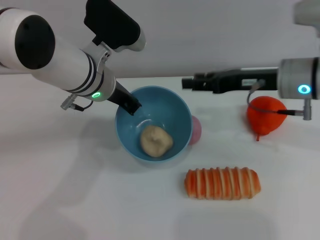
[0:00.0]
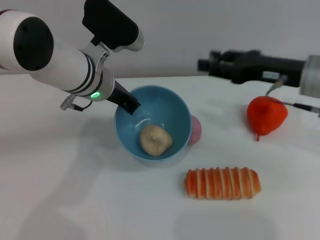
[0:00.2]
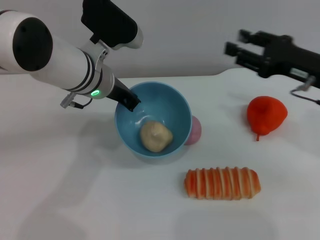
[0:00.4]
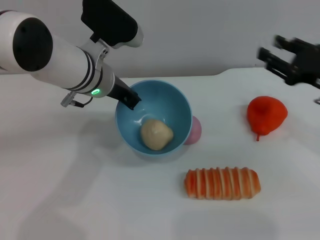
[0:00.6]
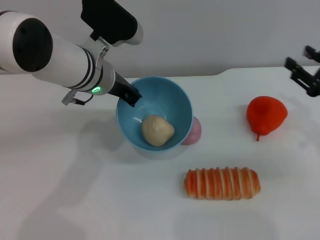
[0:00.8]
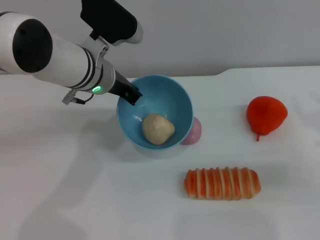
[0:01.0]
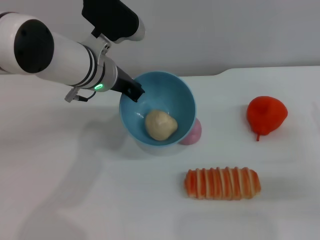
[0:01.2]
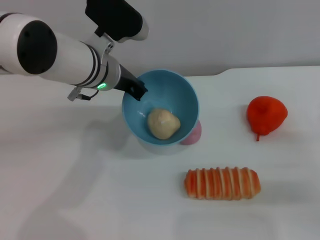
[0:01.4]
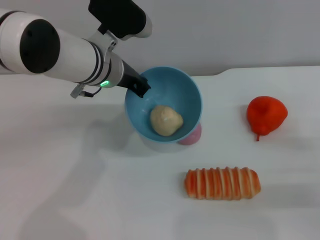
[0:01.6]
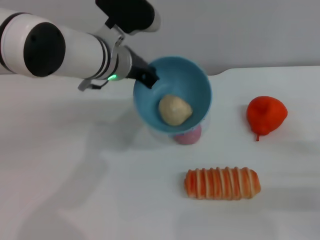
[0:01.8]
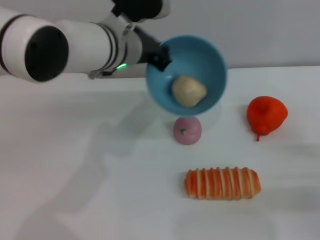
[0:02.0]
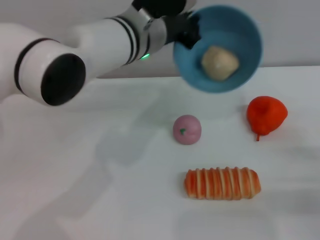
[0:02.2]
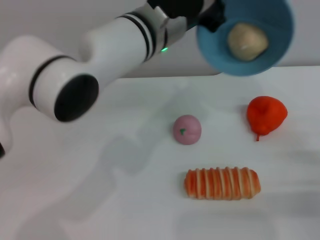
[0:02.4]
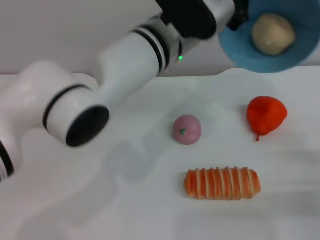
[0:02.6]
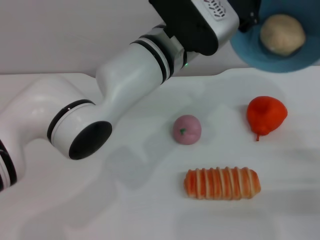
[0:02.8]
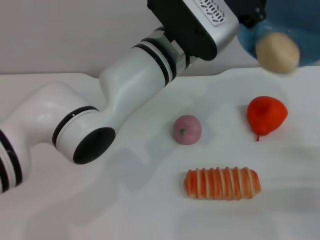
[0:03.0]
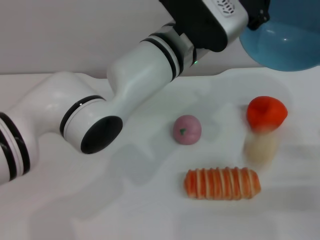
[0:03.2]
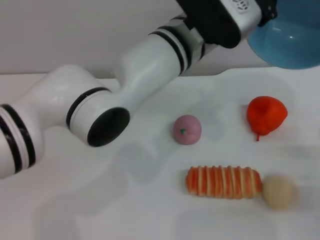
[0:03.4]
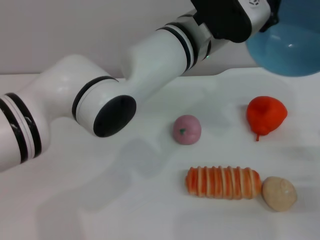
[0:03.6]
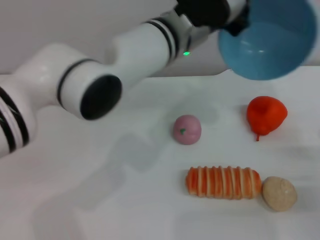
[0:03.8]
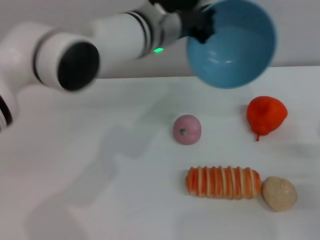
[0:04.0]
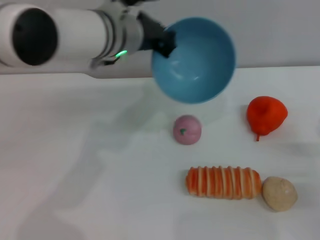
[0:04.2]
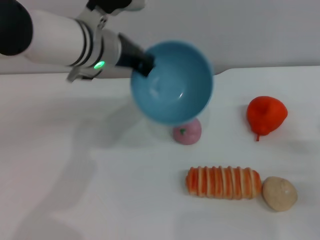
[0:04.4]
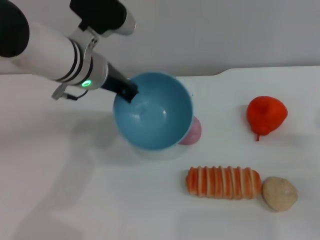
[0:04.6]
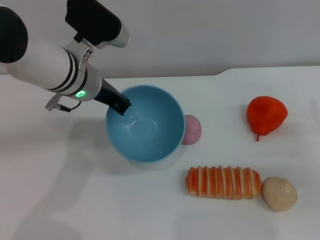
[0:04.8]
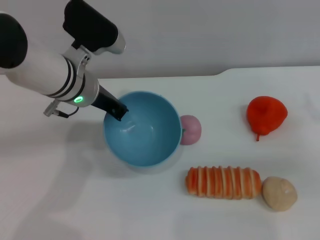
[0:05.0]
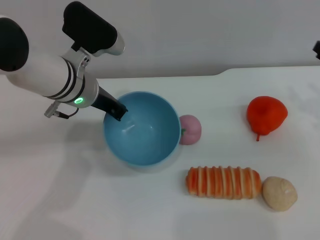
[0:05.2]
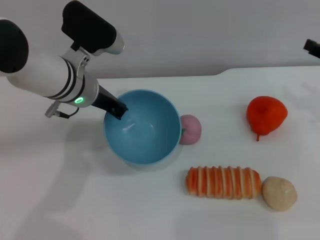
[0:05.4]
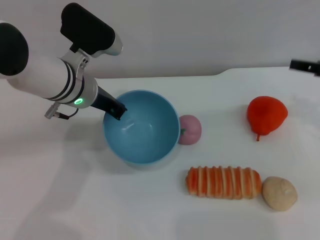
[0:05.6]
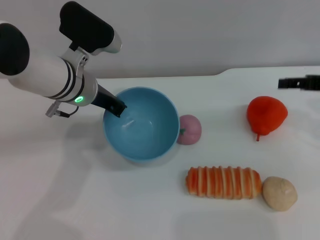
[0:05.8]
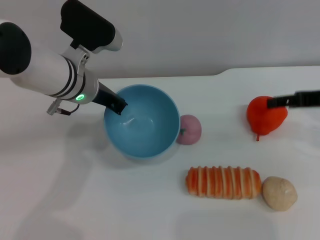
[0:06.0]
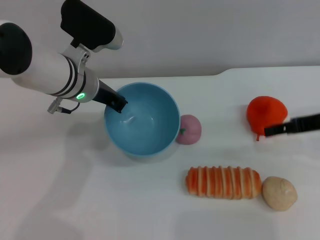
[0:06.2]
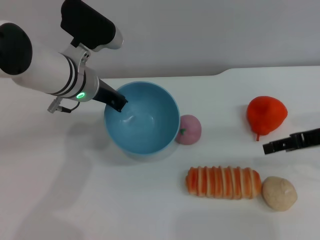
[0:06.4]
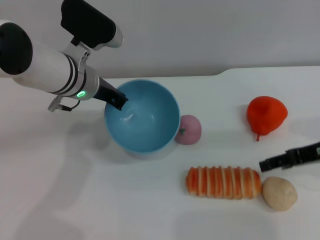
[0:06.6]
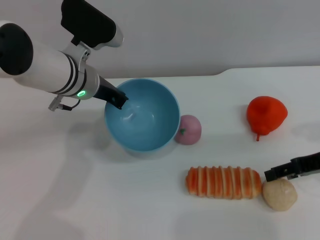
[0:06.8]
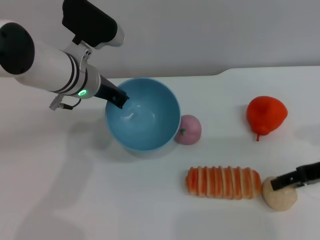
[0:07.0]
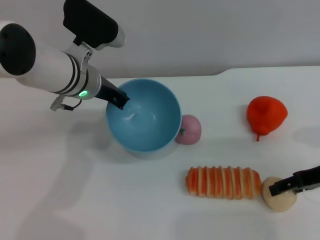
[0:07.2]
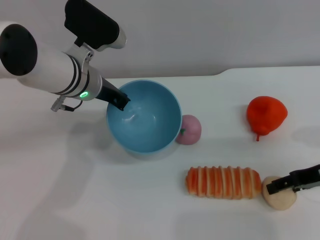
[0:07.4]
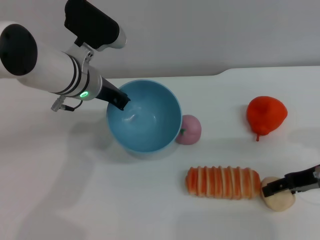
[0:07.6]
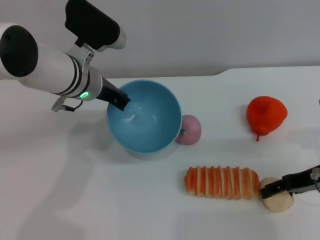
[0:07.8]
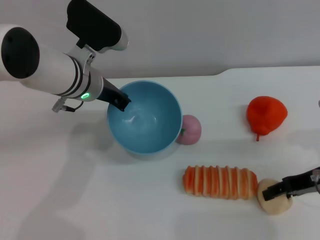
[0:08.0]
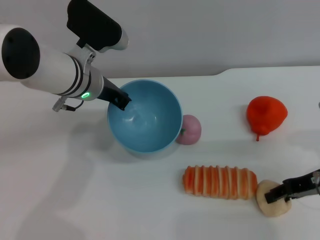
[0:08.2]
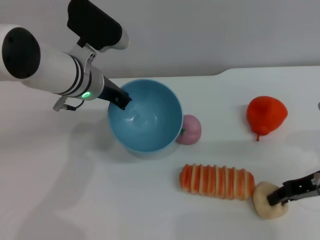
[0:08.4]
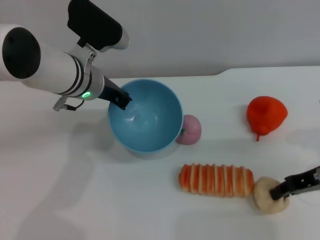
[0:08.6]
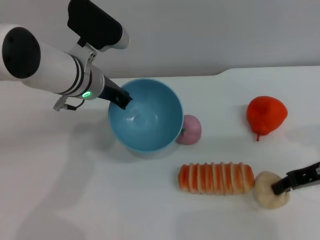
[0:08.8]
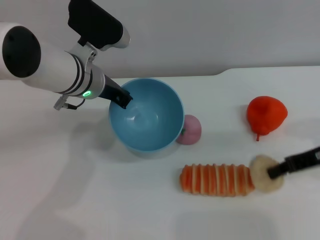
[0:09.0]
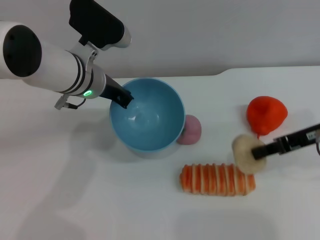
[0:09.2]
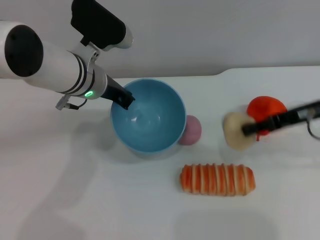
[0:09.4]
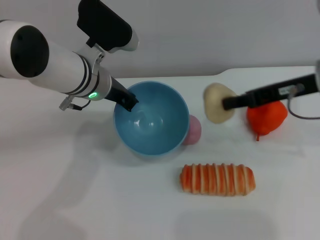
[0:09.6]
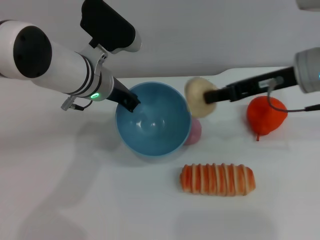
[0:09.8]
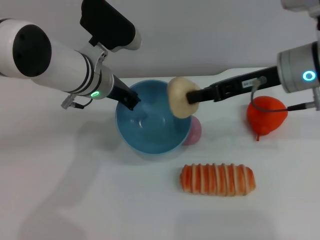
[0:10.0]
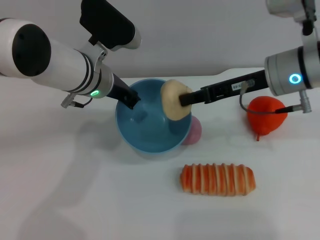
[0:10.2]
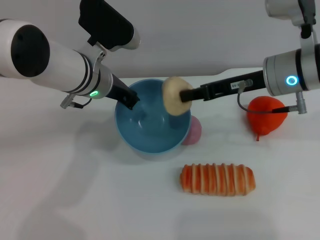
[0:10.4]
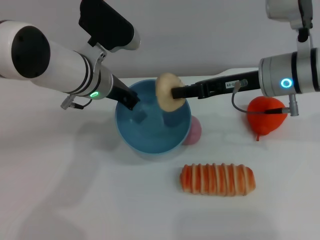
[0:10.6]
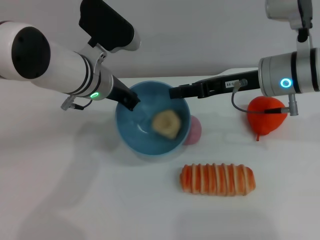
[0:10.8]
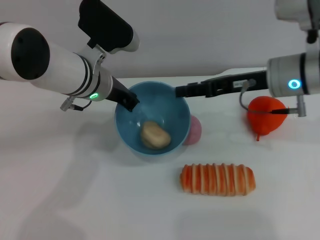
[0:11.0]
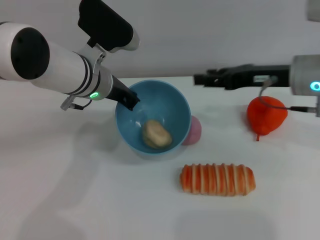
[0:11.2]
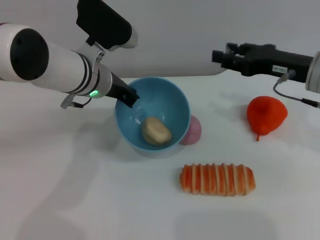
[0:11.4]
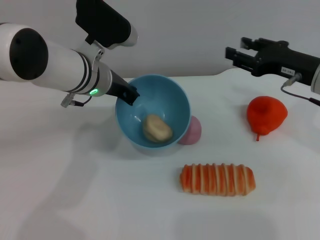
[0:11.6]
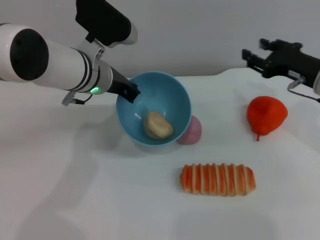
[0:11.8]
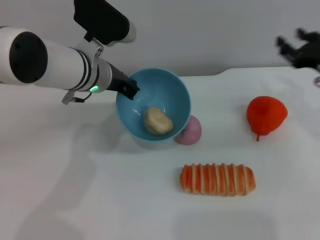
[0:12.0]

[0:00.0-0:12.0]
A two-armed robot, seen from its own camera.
Task of the whole recording: put the egg yolk pastry into the blue bowl and pour it out repeatedly.
Step, 0:00.2 to 0:04.0: Pour the egg yolk pastry out of bowl.
Step, 0:04.2 to 0:09.0: Pick up the egg yolk pastry with the right gripper.
Step, 0:09.2 to 0:11.6: Place the egg yolk pastry into the bowl.
0:00.0 to 0:01.6: The right gripper is displaced to the right, backward and downward by some 25 cm.
0:01.6 to 0:03.0: The left gripper shifts about 10 cm to the right.
0:03.0 to 0:04.4: The left gripper moves to the left, about 10 cm.
0:04.4 to 0:06.0: The right gripper heads upward and forward, covering approximately 15 cm; the left gripper shifts by some 5 cm.
0:06.0 to 0:07.6: The right gripper goes approximately 10 cm downward.
0:07.6 to 0:09.0: The right gripper closes its fingers.
0:09.0 to 0:10.4: The right gripper travels to the left and forward by roughly 10 cm.
0:10.4 to 0:12.0: The right gripper heads to the right and downward, covering approximately 15 cm, and opens its fingers.

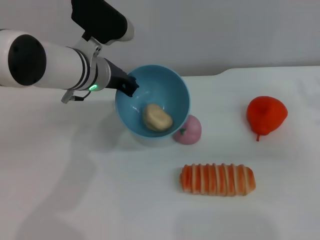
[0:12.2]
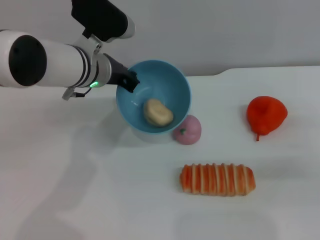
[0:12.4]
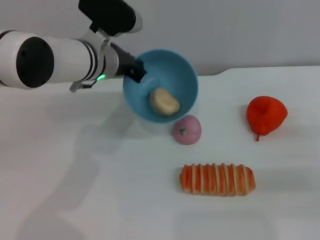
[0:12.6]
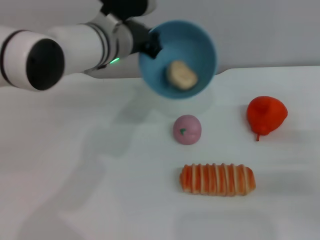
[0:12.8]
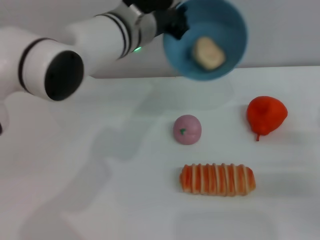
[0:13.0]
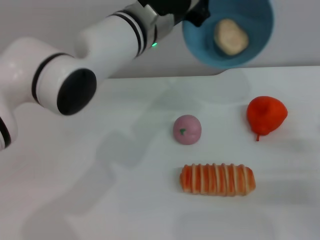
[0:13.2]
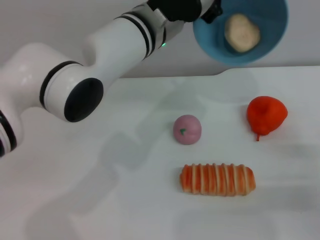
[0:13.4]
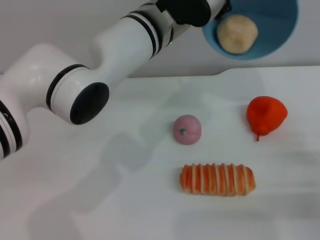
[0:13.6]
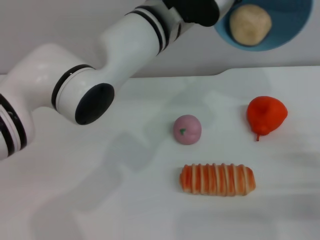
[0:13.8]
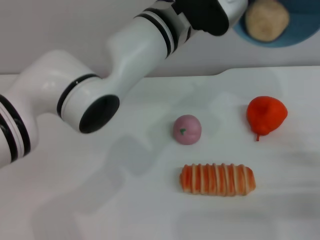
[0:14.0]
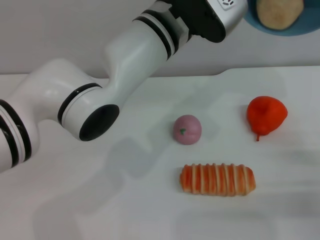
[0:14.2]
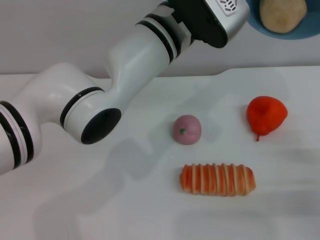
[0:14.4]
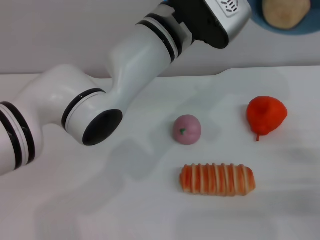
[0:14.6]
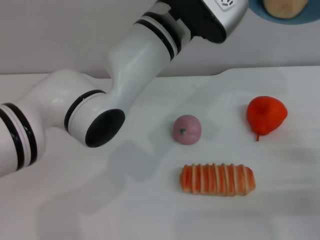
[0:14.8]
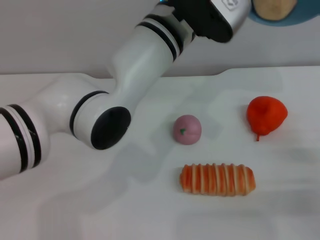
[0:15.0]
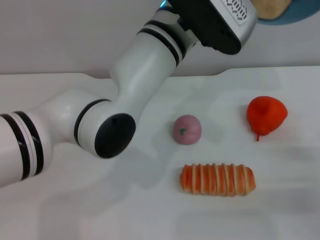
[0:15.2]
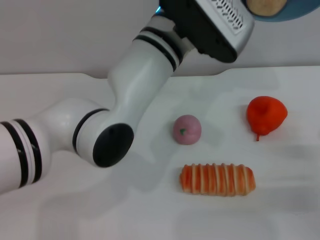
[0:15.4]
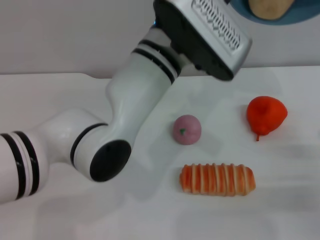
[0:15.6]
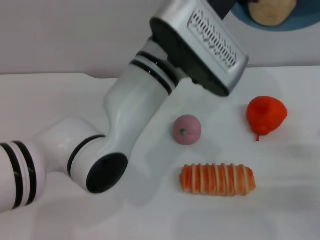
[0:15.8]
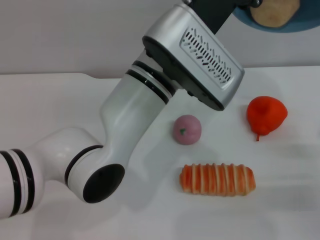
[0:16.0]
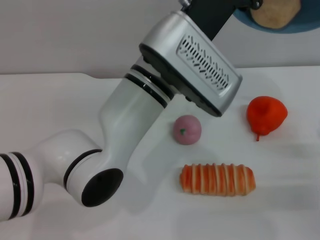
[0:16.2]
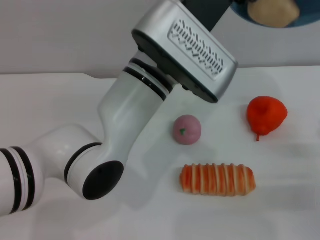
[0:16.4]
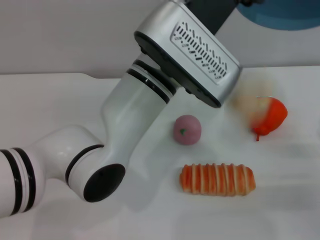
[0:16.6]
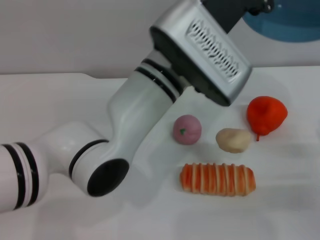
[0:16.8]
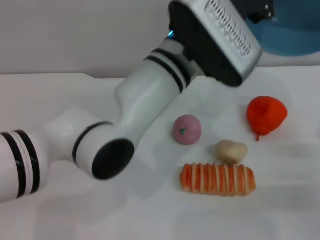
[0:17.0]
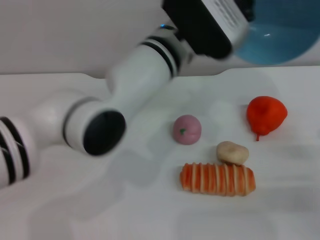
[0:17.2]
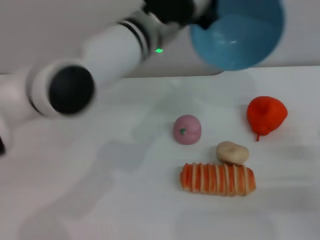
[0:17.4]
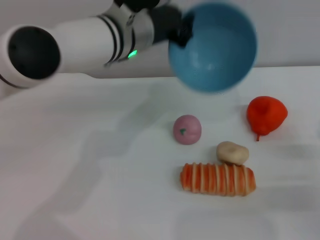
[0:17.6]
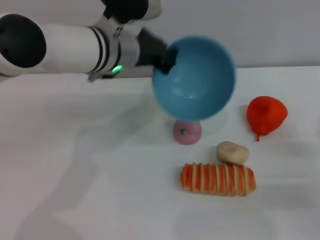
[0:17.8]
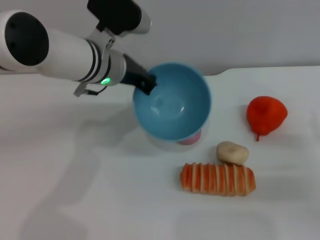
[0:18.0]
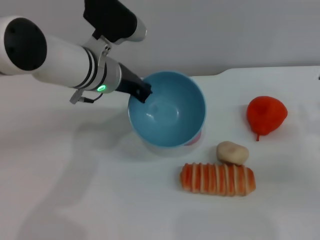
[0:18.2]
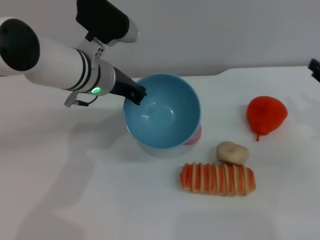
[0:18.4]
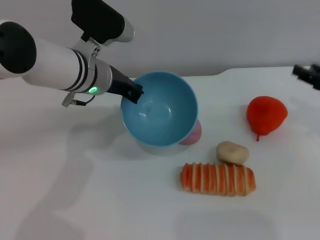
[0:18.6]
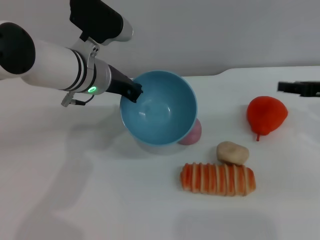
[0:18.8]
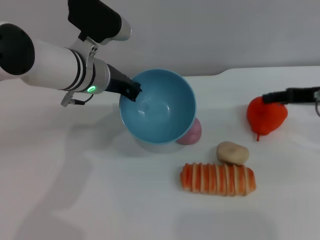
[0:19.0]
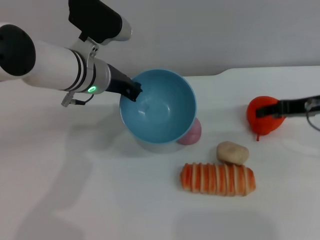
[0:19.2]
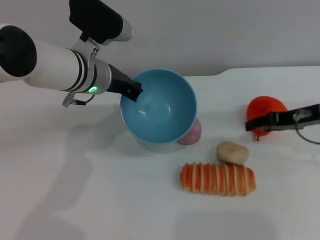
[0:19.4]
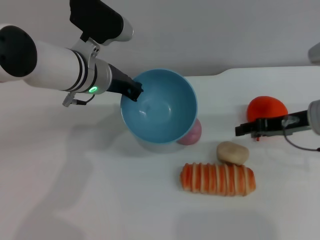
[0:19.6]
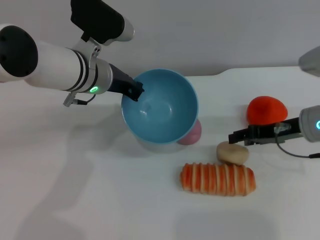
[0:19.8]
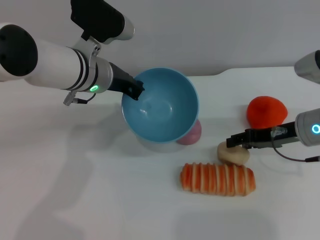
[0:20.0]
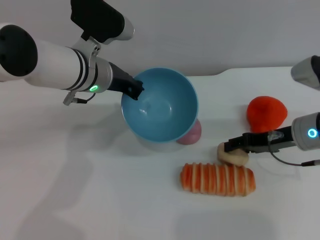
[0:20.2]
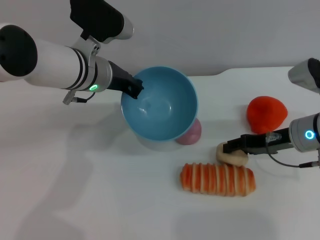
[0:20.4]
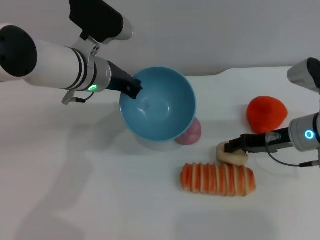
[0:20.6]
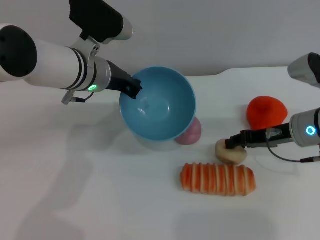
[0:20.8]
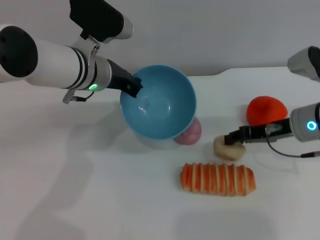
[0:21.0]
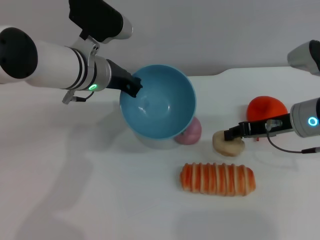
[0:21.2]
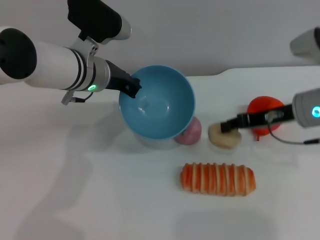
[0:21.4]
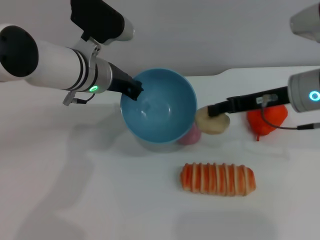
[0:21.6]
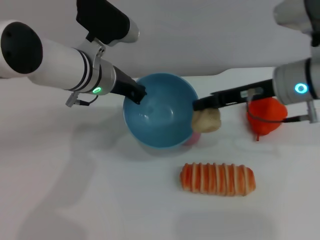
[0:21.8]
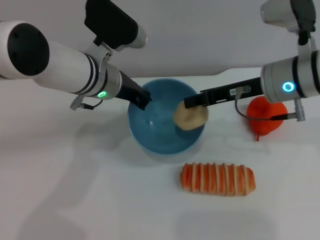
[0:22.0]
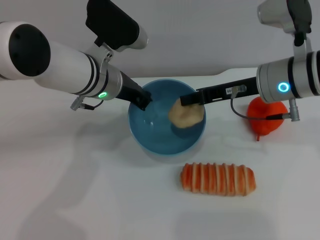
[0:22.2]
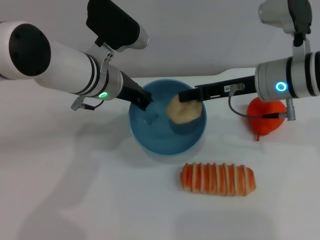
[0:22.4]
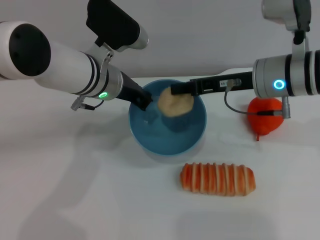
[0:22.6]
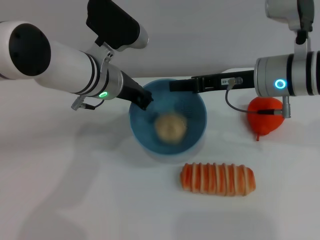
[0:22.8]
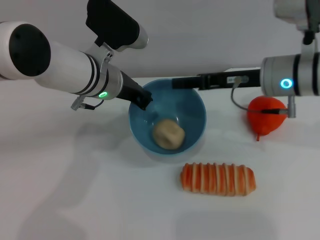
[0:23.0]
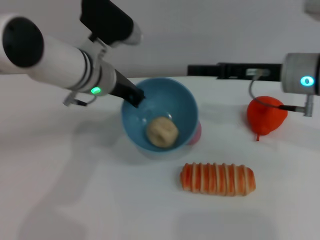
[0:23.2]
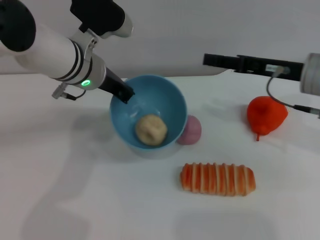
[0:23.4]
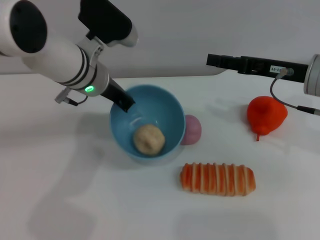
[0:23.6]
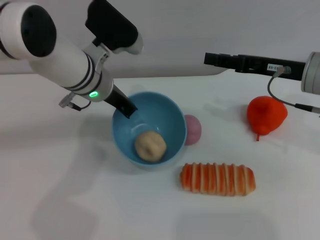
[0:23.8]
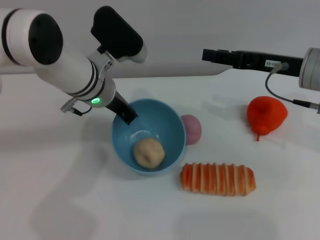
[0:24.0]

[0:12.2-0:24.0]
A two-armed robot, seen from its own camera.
Task of the whole recording: put the egg yolk pastry into the blue bowl and pour it out repeatedly.
Step, 0:12.2 to 0:16.6: Pour the egg yolk pastry out of bowl.
Step, 0:17.0 to 0:21.2: Pick up the egg yolk pastry with the right gripper.
Step, 0:21.4 to 0:23.4: Place the egg yolk pastry into the bowl.
0:12.2 to 0:13.6: The left gripper shifts approximately 10 cm to the right and upward, while the right gripper shifts about 15 cm backward and downward.
0:16.6 to 0:18.2: The right gripper changes place by roughly 5 cm. The left gripper shifts approximately 15 cm to the left and forward.
0:18.2 to 0:19.6: The right gripper heads to the left and forward, covering roughly 10 cm.
0:19.6 to 0:21.0: The grippers stay close to where they were, moving slightly.
0:21.0 to 0:22.6: The right gripper moves to the left and upward, some 10 cm, and closes.
0:22.6 to 0:24.0: The right gripper goes about 5 cm to the right, and opens up.
